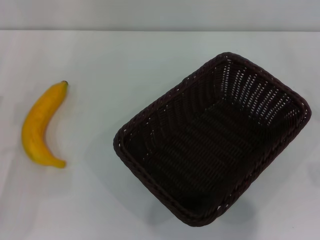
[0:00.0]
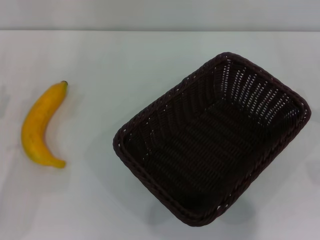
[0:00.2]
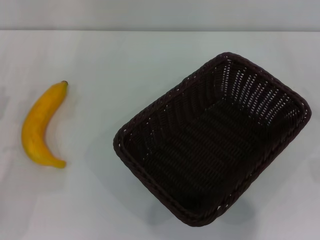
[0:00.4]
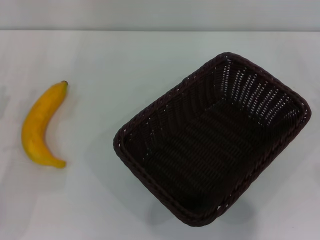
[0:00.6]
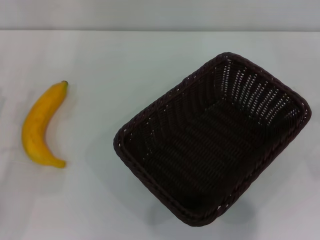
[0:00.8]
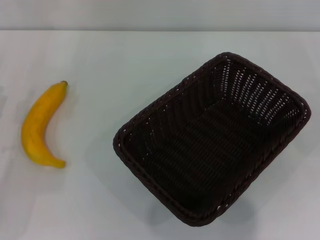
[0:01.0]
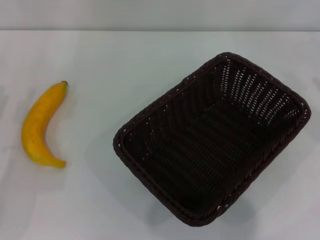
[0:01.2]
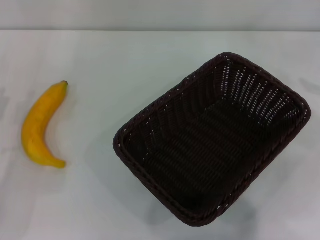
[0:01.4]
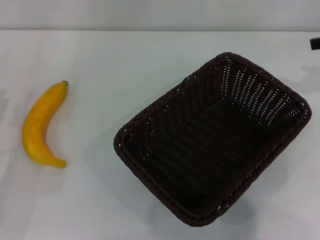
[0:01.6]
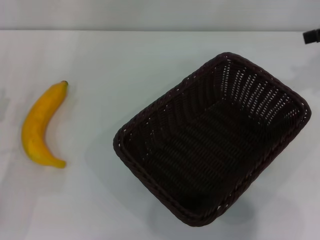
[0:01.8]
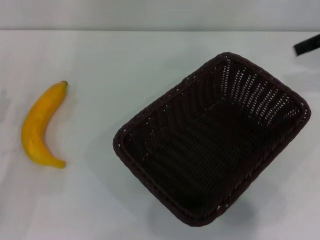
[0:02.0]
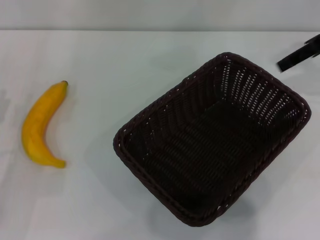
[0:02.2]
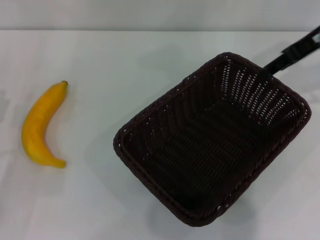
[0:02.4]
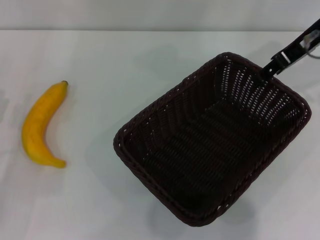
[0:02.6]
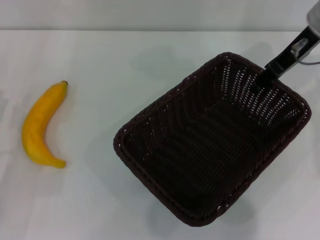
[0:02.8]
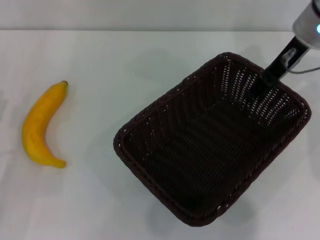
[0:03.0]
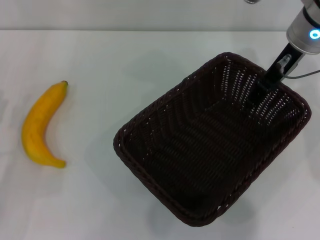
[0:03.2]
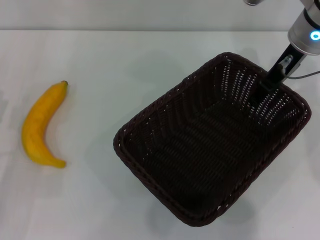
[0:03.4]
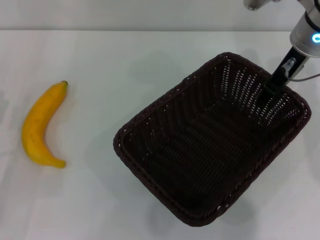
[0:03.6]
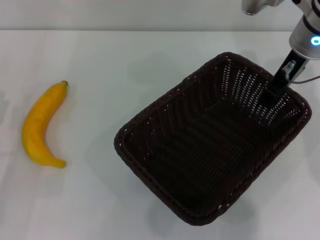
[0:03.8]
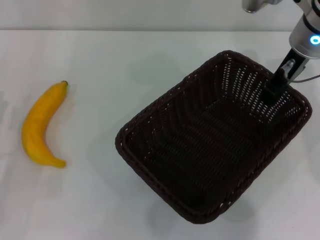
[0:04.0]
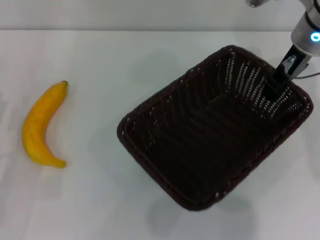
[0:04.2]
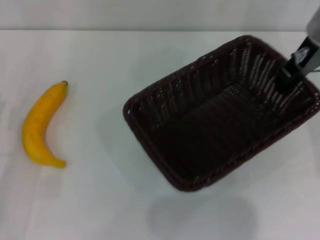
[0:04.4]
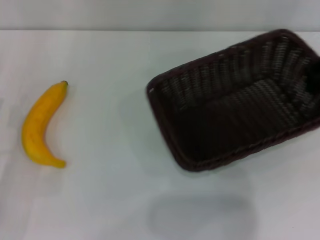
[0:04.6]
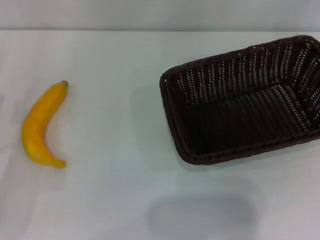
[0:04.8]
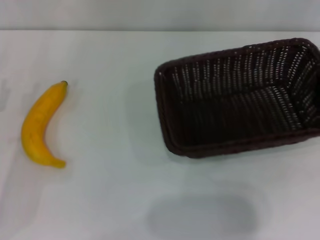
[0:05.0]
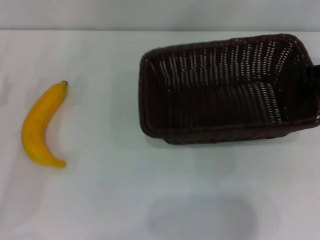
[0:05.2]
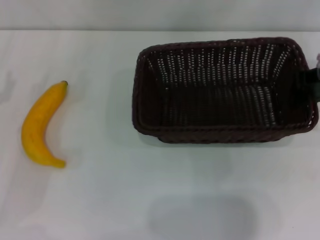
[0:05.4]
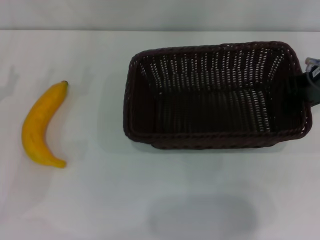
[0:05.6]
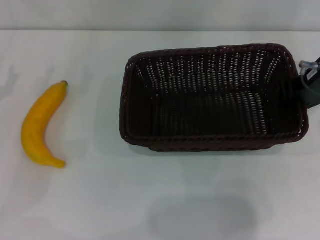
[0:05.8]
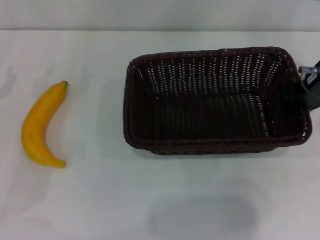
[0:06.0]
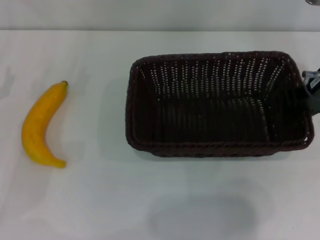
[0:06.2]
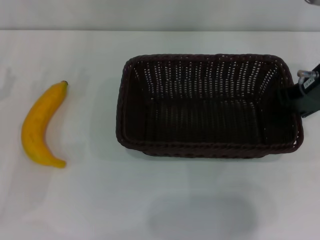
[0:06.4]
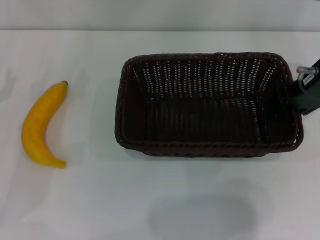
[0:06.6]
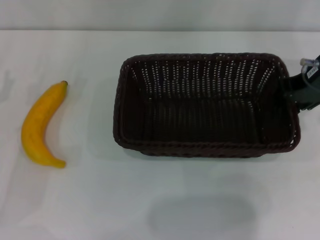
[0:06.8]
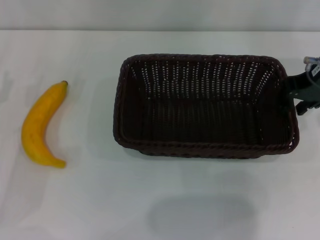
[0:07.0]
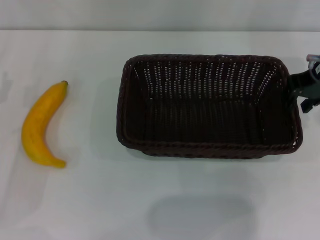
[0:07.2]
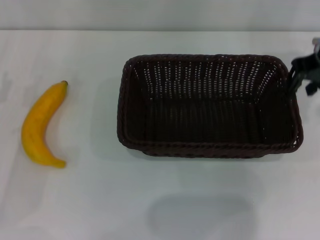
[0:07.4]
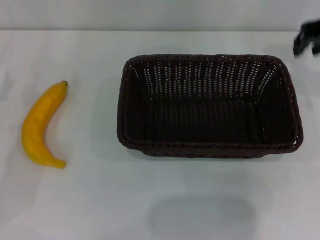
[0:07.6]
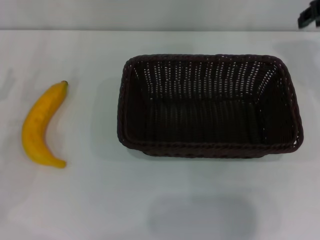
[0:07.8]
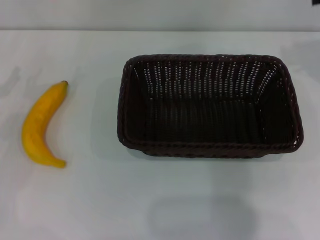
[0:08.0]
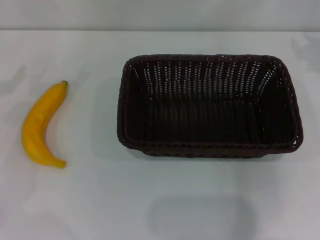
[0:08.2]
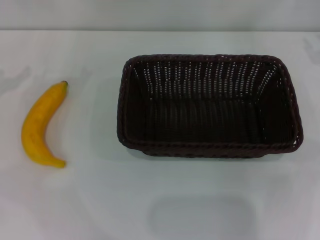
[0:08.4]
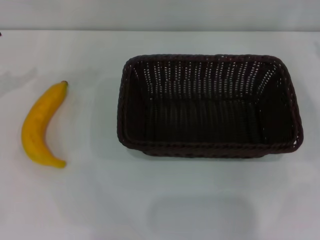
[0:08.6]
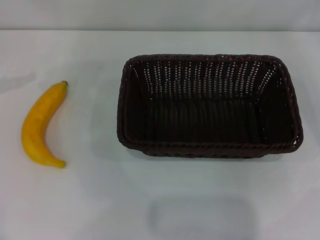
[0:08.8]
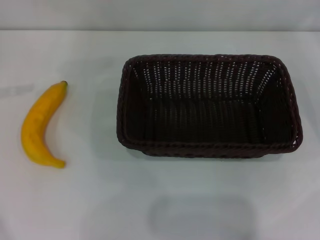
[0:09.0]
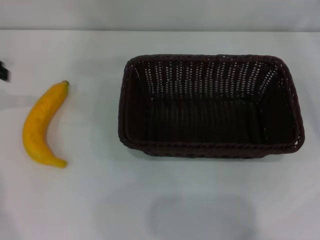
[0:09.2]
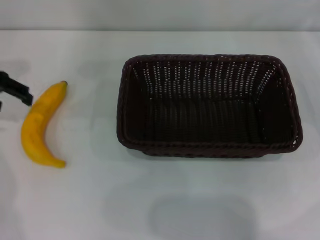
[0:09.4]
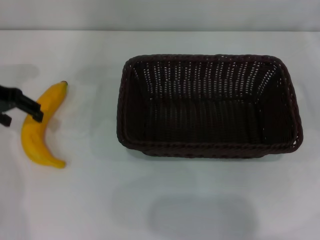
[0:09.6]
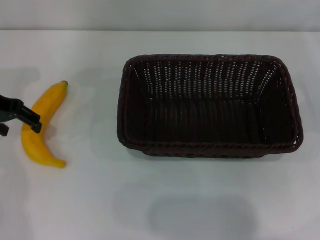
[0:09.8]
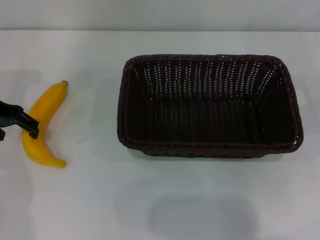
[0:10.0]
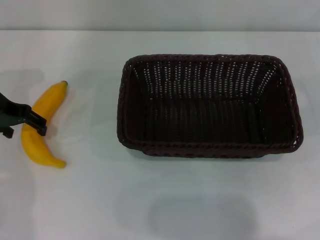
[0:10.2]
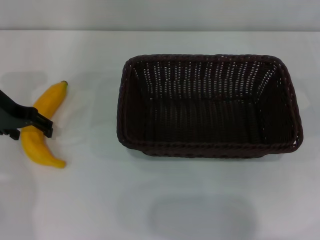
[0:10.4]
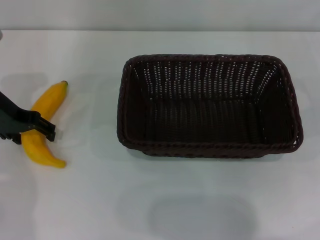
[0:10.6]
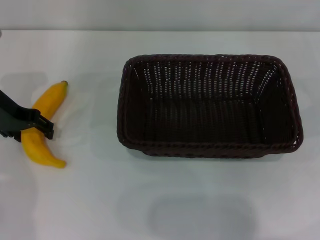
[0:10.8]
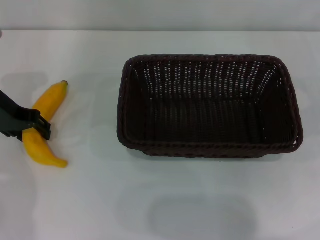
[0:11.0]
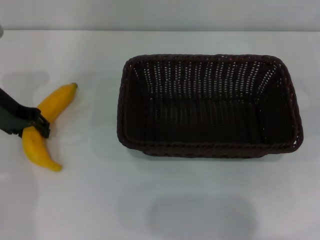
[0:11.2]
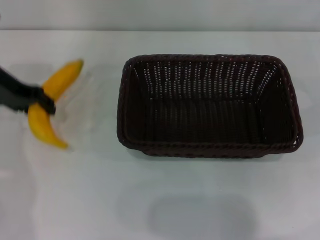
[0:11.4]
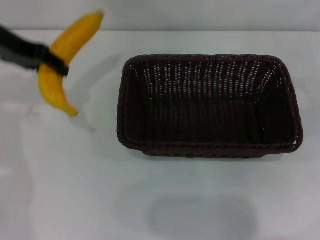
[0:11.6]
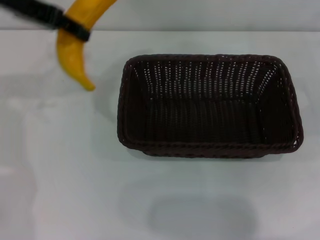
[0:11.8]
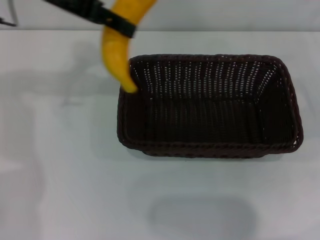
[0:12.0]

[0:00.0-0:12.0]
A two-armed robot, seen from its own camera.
Step, 0:00.0 to 0:04.4: Pick up the dark basket with the right gripper.
Step, 0:04.6 to 0:07.6: Place the dark basket in the center of view with the right gripper.
Step, 0:07.8 to 0:11.2: Pick up the banana with the left gripper.
0:01.6 to 0:03.0: The right gripper goes approximately 15 cm to the left.
0:03.0 to 0:04.4: The right gripper closes.
0:04.4 to 0:06.0: The left gripper shifts approximately 5 cm forward; the right gripper travels backward by approximately 5 cm.
0:06.0 to 0:07.6: The right gripper goes about 5 cm upward.
0:07.6 to 0:09.0: The right gripper travels to the right and downward by some 25 cm, and opens.
0:09.0 to 0:10.4: The left gripper goes some 15 cm to the right and downward.
0:10.4 to 0:12.0: The left gripper moves upward and to the right, about 15 cm, and closes its fingers.

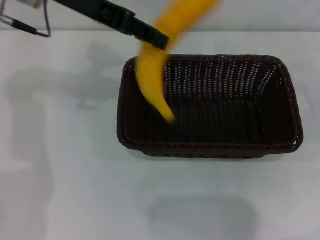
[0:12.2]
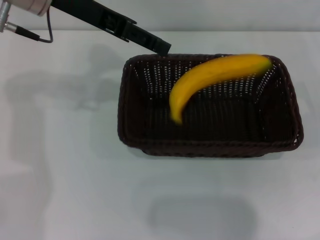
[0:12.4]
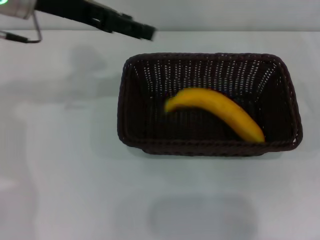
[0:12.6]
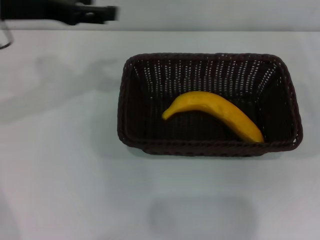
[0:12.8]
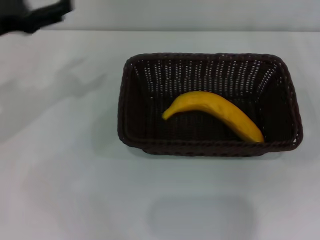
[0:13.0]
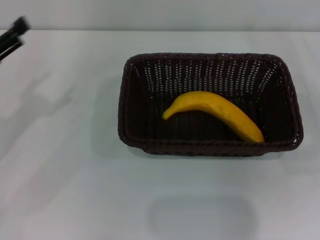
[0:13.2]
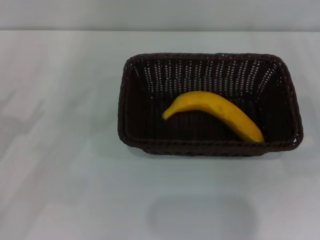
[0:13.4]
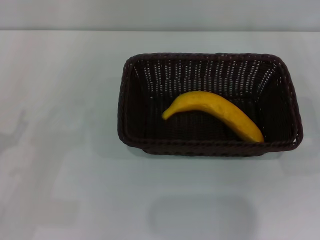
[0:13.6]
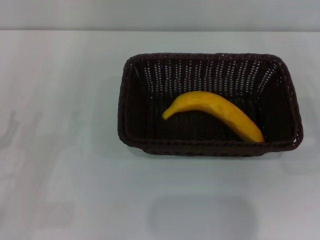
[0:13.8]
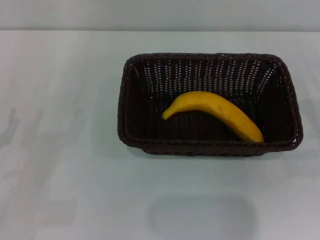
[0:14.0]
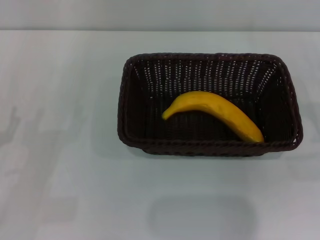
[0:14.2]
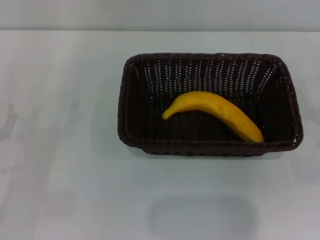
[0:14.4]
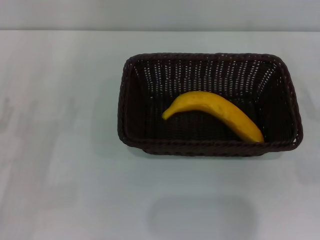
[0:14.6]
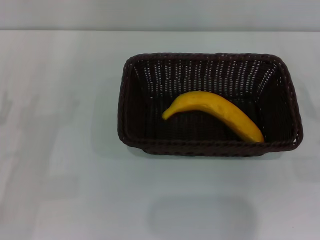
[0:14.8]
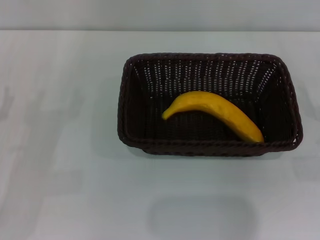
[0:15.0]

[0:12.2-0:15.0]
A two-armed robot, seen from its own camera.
0:12.2 to 0:13.6: The right gripper moves approximately 5 cm, while the left gripper moves downward, backward and to the left, some 35 cm, and opens.
